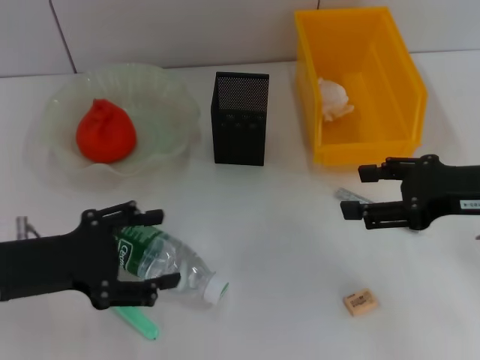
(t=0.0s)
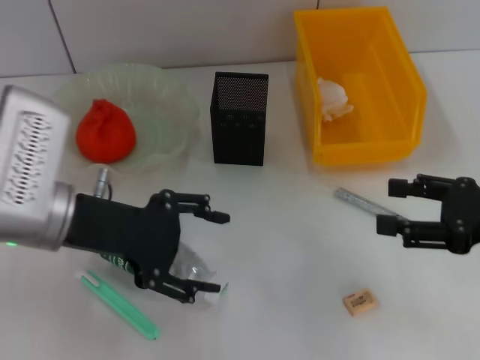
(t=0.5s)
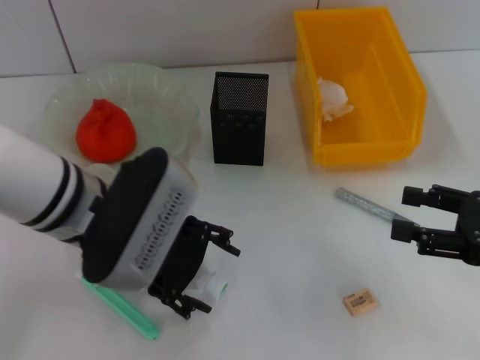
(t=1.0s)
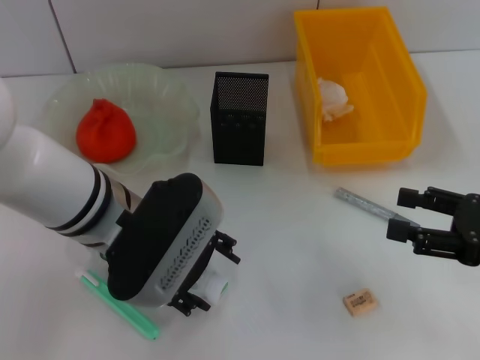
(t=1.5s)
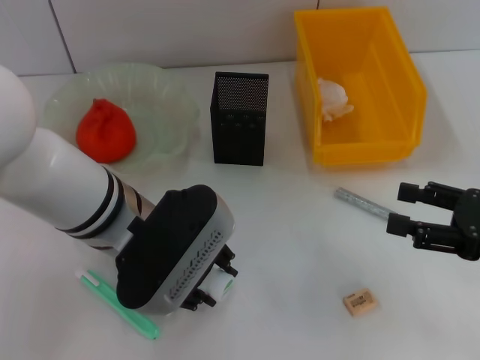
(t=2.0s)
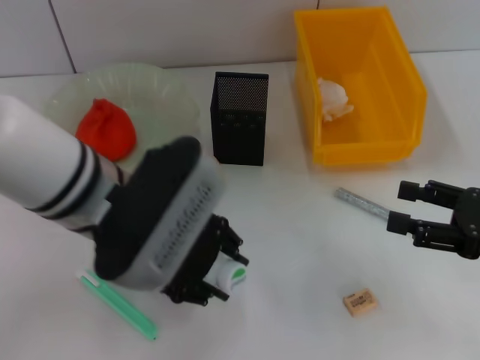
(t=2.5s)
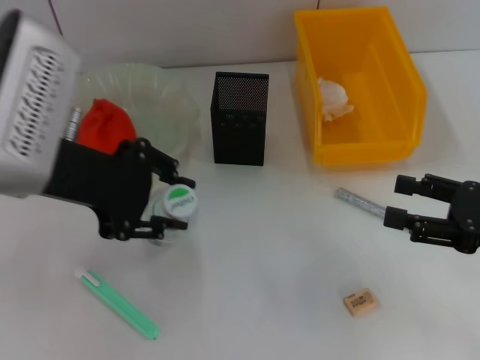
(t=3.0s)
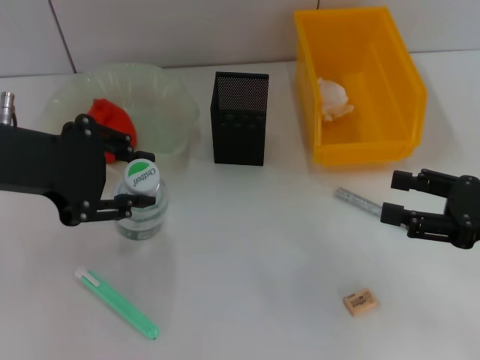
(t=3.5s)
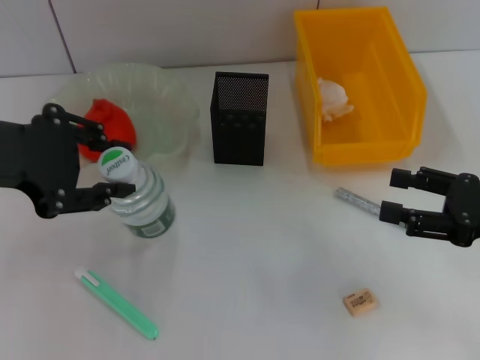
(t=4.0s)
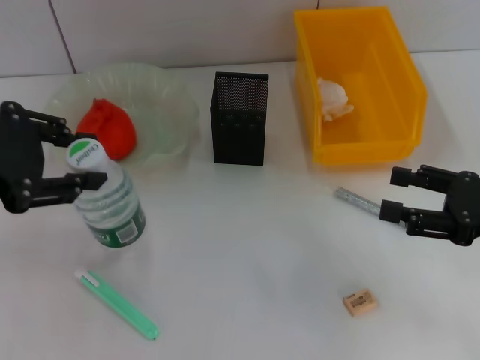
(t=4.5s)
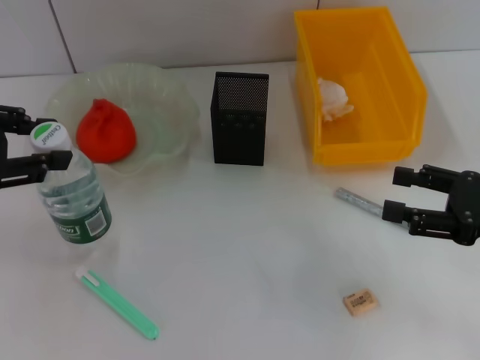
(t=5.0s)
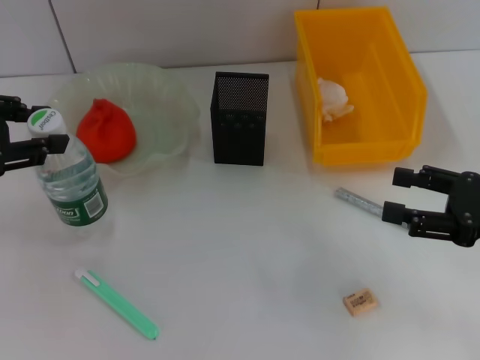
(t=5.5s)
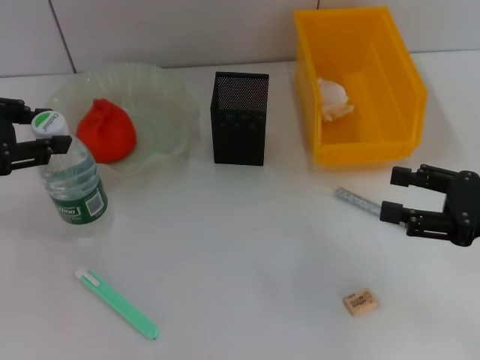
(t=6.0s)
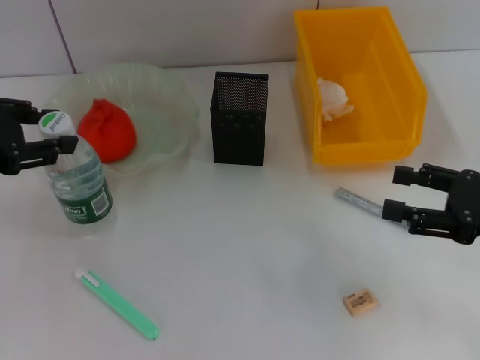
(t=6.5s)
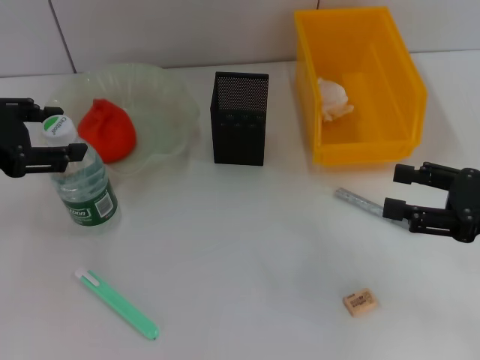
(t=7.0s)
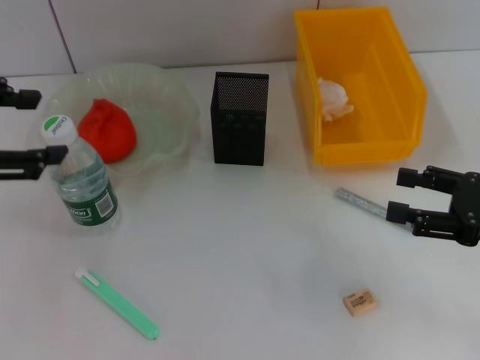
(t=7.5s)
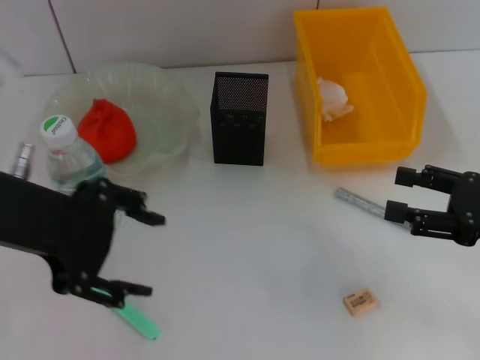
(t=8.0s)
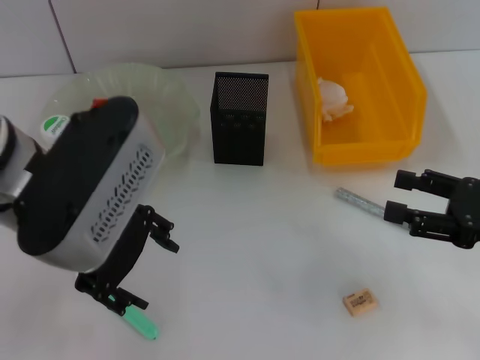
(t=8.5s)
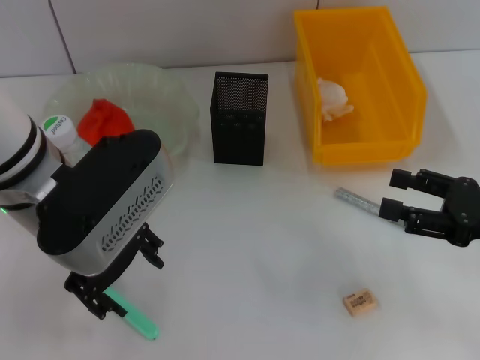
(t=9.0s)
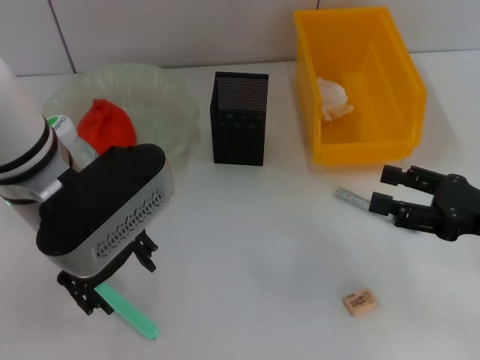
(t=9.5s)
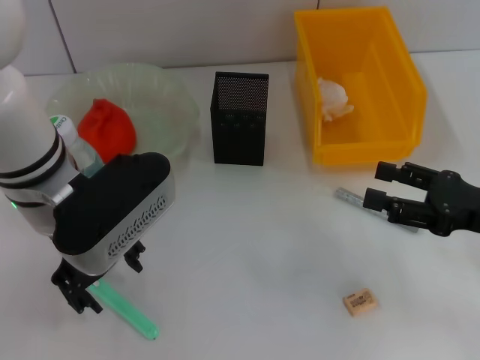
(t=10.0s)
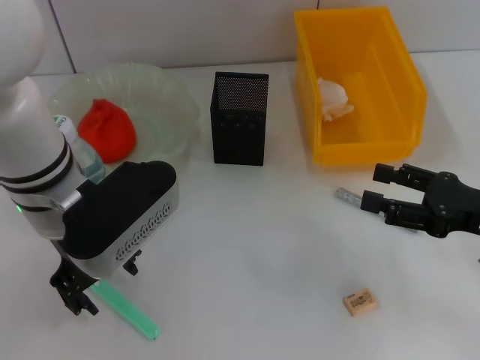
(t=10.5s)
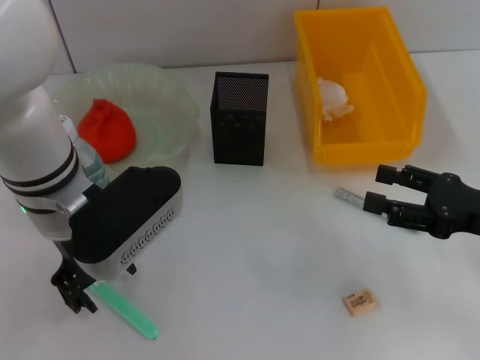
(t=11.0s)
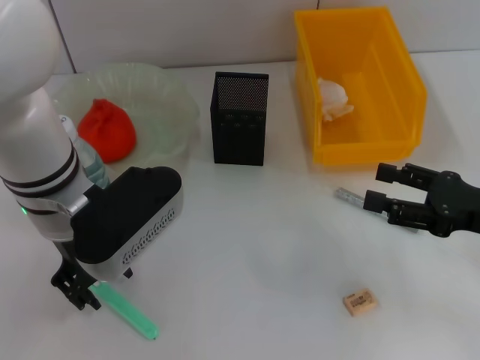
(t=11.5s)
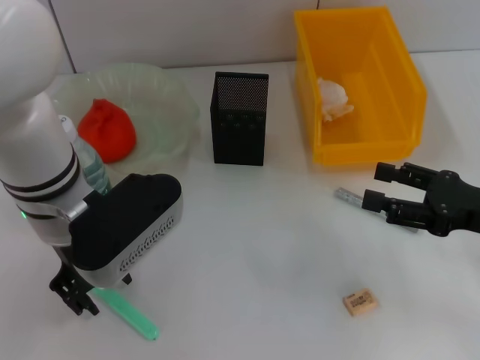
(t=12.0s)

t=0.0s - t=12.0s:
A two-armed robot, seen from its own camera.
Step, t=0.0s - t=2.0s: Grab the water bottle with the left hand.
Step, t=2.5s - t=7.0s: Place the water bottle on the table with the left hand.
t=0.0s - t=2.0s: The right gripper shifts by approximately 10 cm. The left gripper travels to the right by roughly 15 cm, and closes up.
t=2.0s - t=4.0s: The left gripper travels to the left and upward by about 20 cm.
t=4.0s - t=6.0s: The left gripper moves to the left, roughly 5 cm.
t=6.0s - t=8.0s: The left gripper shifts approximately 10 cm to the right and backward.
t=8.0s - t=10.0s: The left gripper moves downward, to the right and forward, about 10 cm.
t=10.0s - t=12.0s: There are only small adjustments of the grippers.

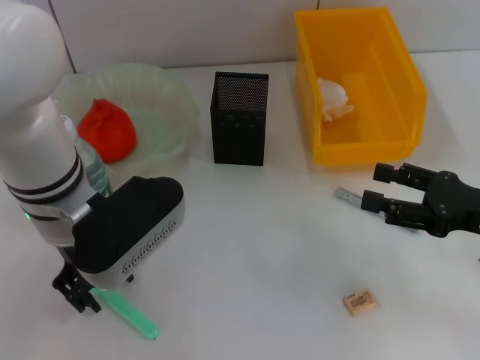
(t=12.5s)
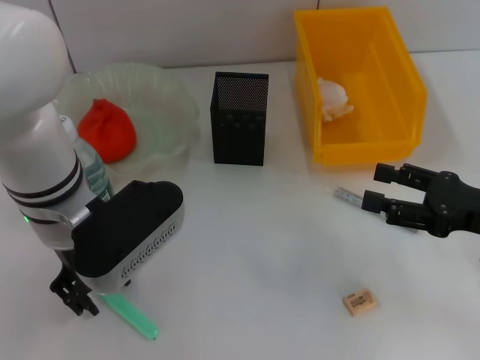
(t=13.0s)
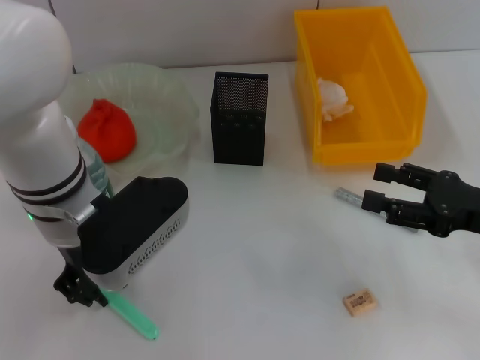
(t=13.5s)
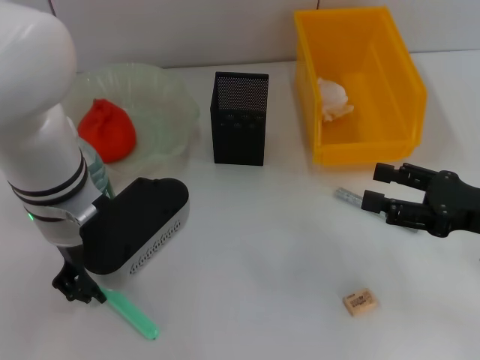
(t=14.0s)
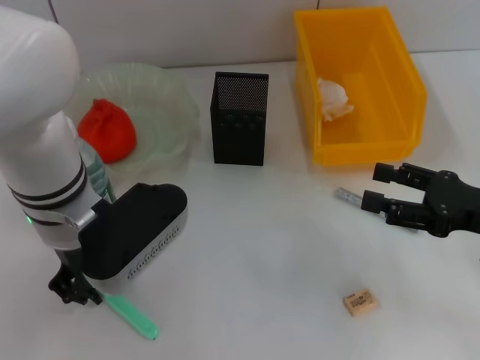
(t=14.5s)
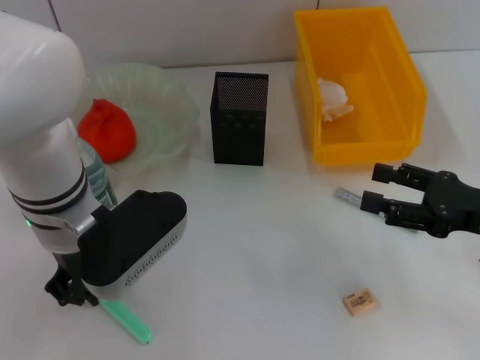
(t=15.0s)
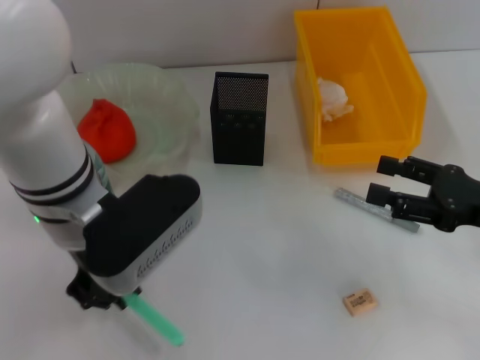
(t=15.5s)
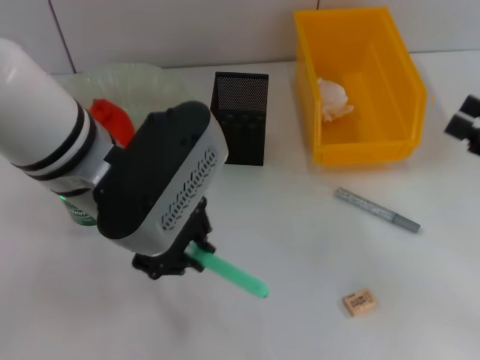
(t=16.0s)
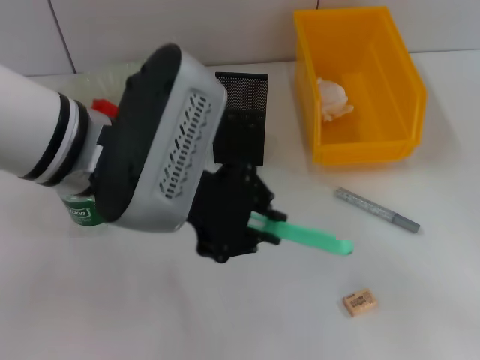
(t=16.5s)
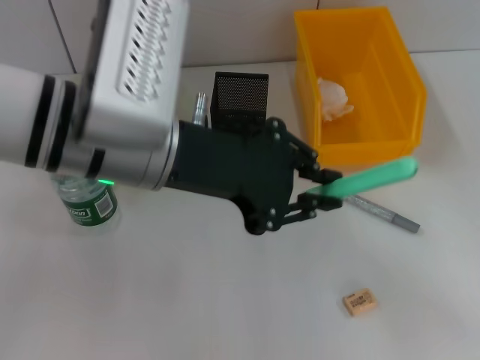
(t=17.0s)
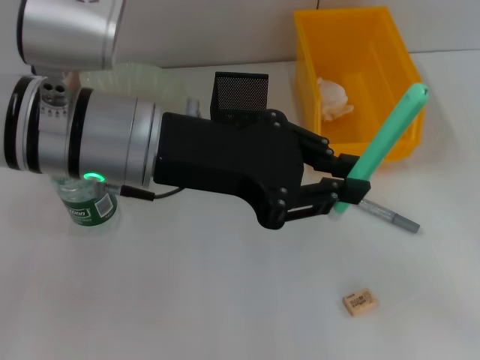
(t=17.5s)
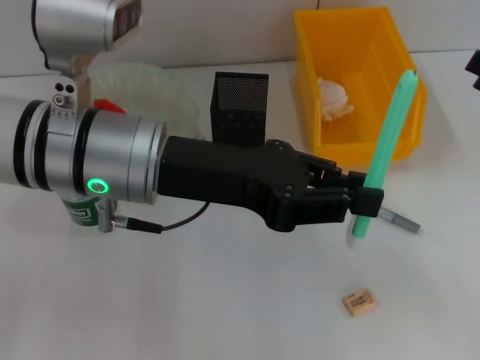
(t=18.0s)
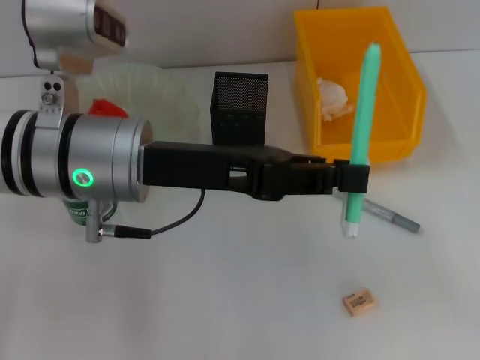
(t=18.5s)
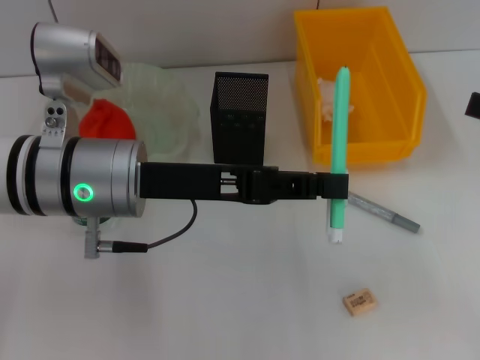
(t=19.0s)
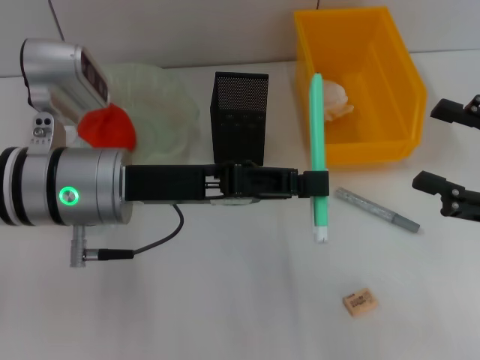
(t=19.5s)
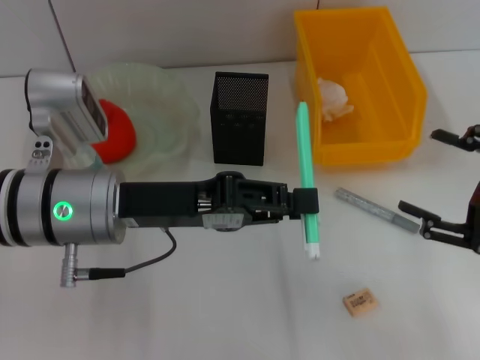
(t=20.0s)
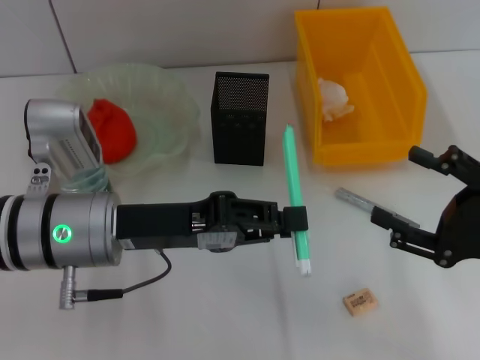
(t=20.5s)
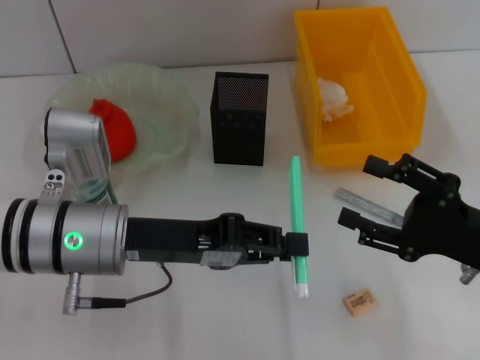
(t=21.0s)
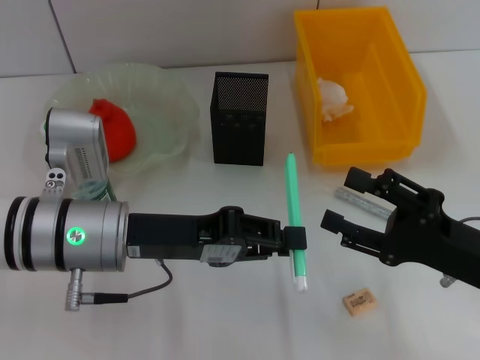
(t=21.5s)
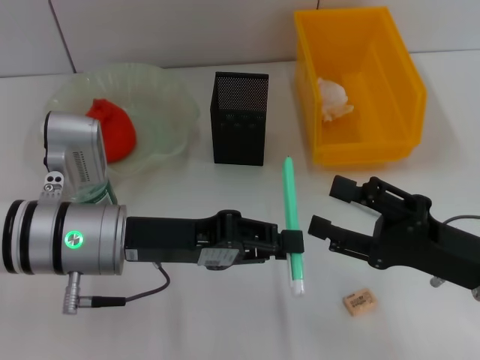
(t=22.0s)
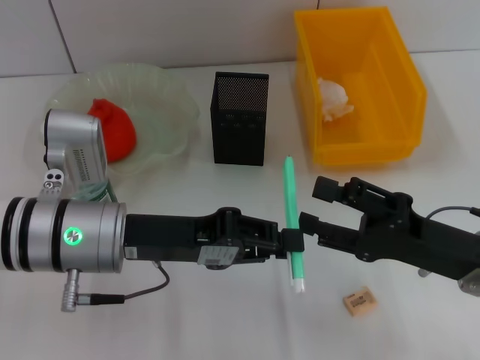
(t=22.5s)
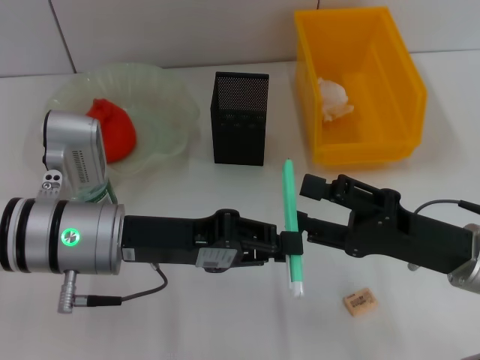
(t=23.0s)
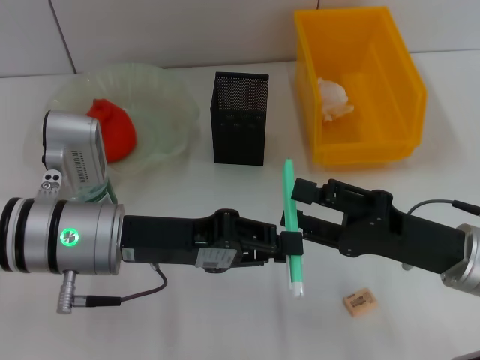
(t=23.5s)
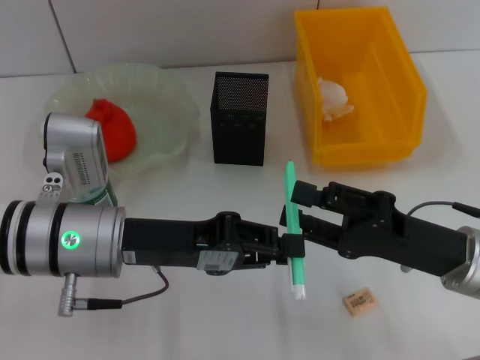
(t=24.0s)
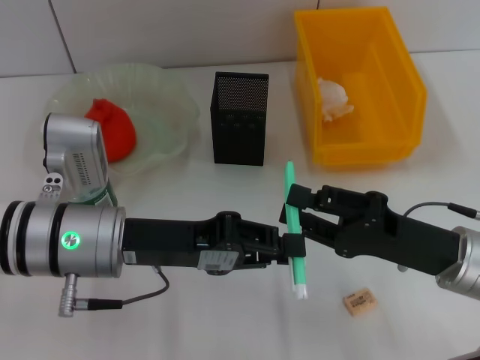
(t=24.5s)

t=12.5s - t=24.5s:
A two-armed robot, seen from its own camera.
Step, t=12.5s - t=14.5s: Grab the blue utility knife with the left hand.
t=12.5s - t=14.5s: The left gripper closes its fingers.
t=14.5s - t=16.5s: The left gripper shifts some 5 cm upward, while the right gripper is displaced to the right by some 5 cm.
t=16.5s - t=18.5s: The right gripper moves roughly 5 cm.
t=18.5s - t=20.5s: The left gripper goes approximately 5 cm downward; the right gripper heads downward, to the left and backward, covering about 15 cm.
t=20.5s - t=22.5s: The right gripper goes roughly 5 cm to the left.
t=22.5s - t=24.5s: The right gripper closes.

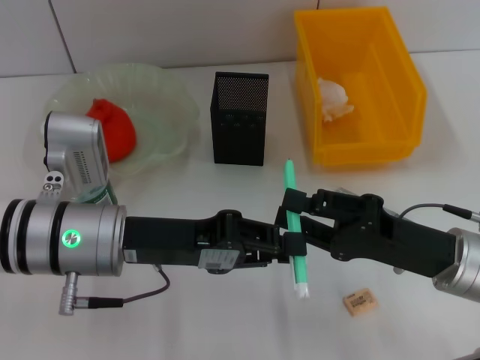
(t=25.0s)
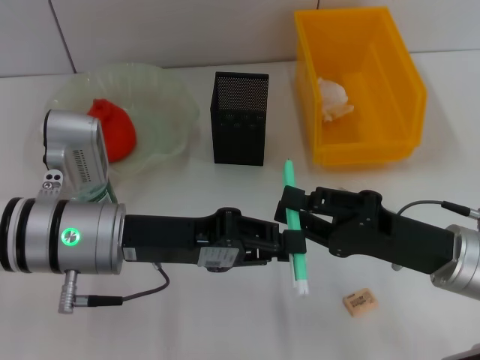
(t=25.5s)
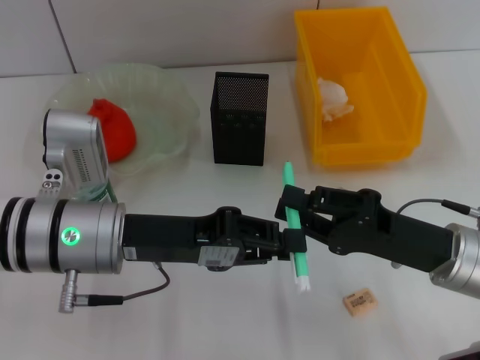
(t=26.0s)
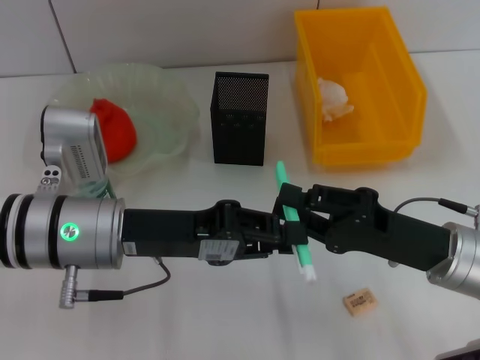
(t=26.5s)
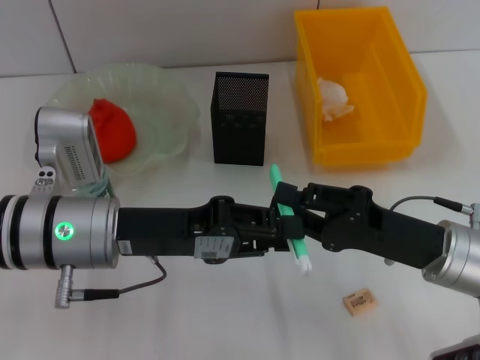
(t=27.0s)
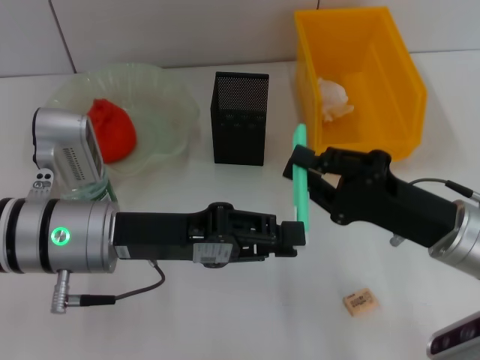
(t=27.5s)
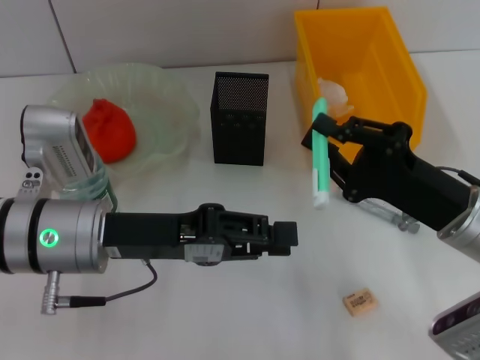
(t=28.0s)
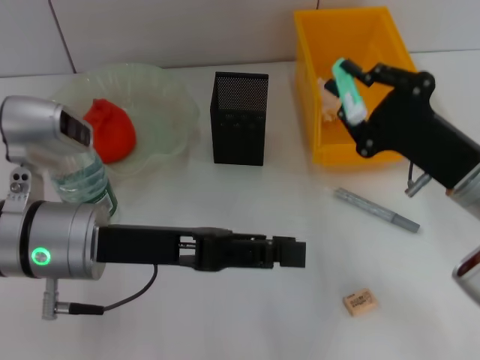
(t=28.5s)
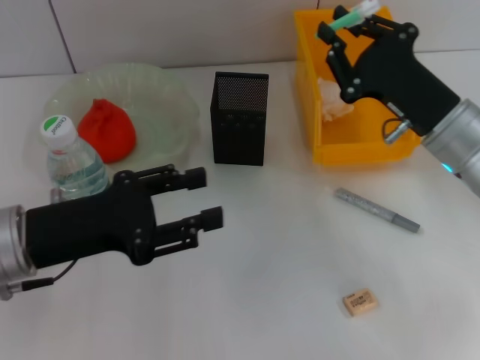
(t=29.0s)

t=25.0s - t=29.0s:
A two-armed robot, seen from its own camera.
Step, t=25.0s - t=27.5s: Pass the blue utility knife from the left hand to the right hand.
t=25.0s - t=27.0s: Neither gripper changes place.
t=27.0s - t=29.0s: The right gripper travels forward by about 10 cm, while the left gripper goes some 5 cm to the left, and opens its fingers.
